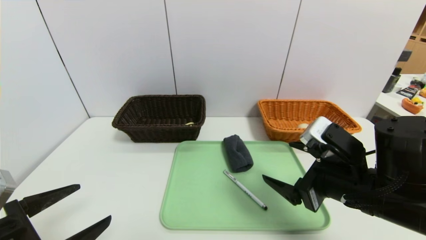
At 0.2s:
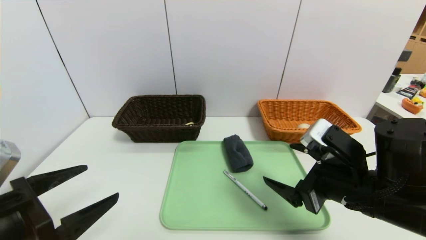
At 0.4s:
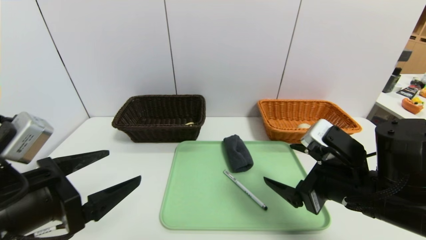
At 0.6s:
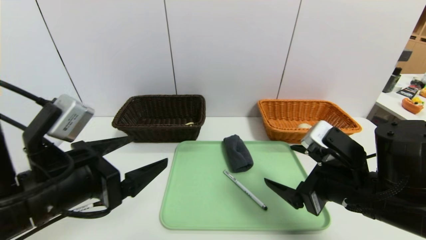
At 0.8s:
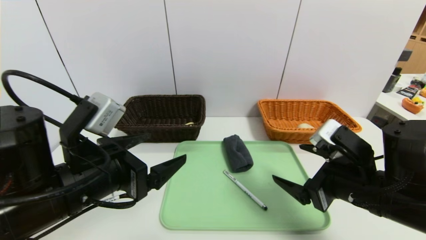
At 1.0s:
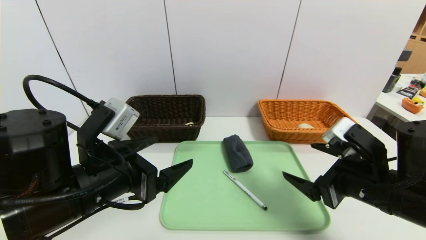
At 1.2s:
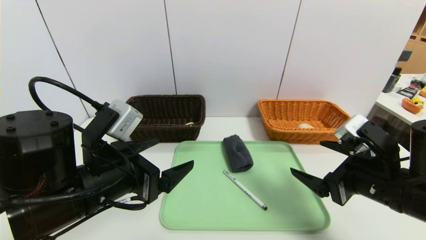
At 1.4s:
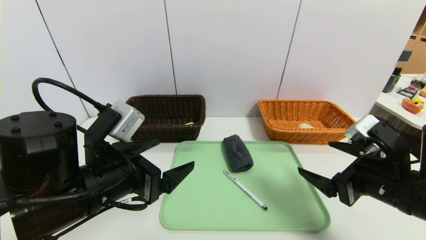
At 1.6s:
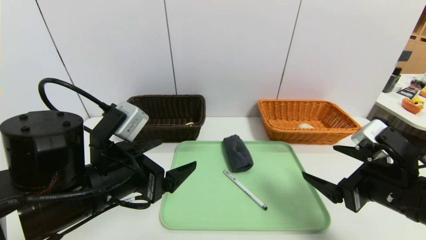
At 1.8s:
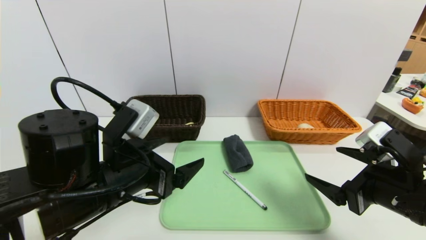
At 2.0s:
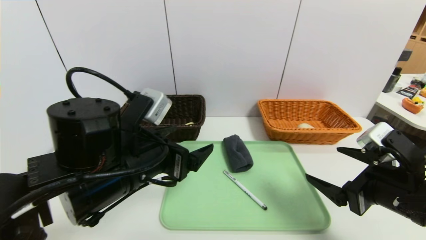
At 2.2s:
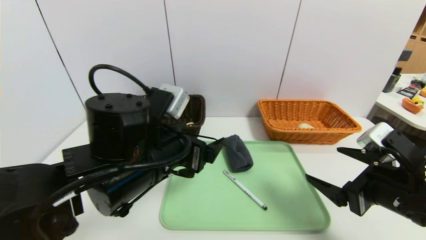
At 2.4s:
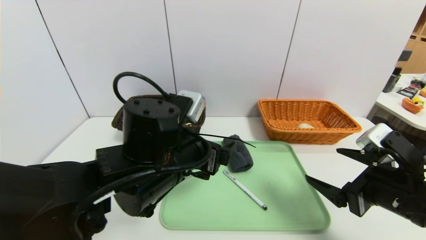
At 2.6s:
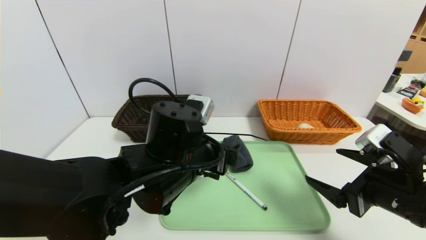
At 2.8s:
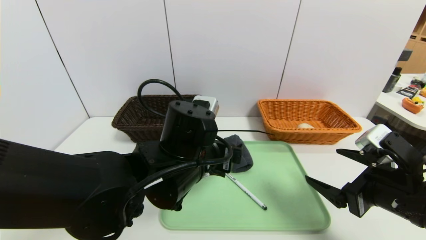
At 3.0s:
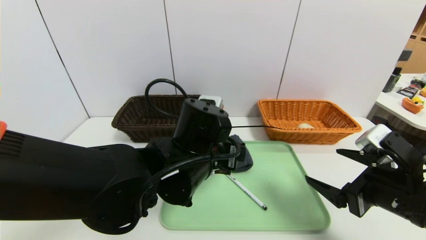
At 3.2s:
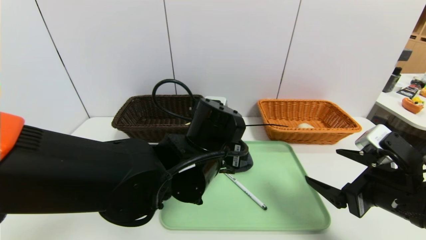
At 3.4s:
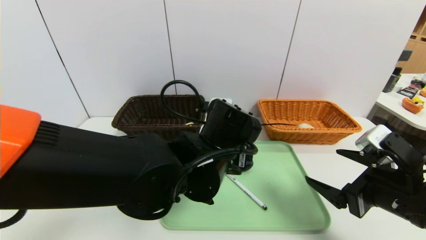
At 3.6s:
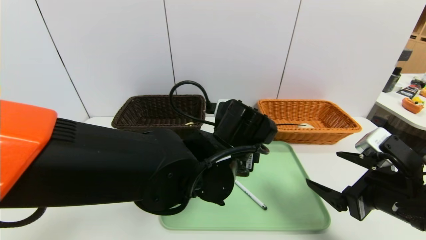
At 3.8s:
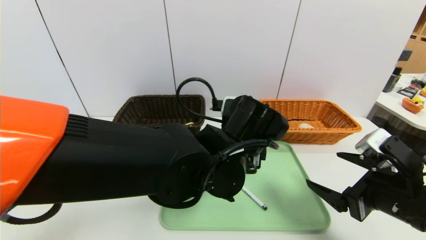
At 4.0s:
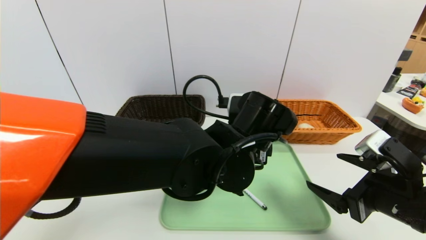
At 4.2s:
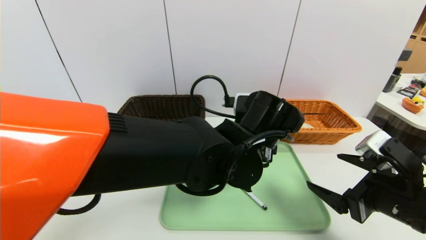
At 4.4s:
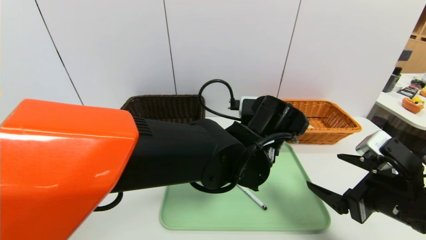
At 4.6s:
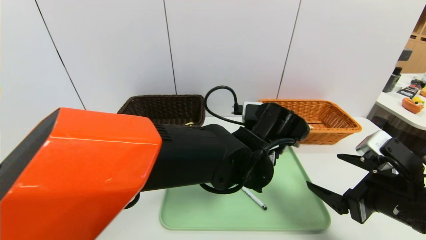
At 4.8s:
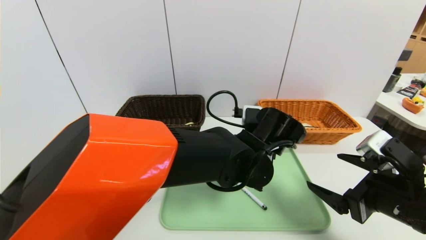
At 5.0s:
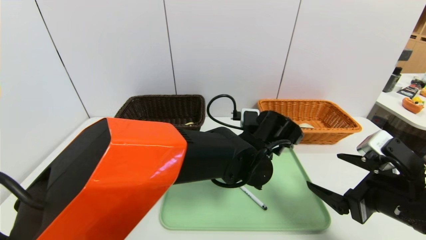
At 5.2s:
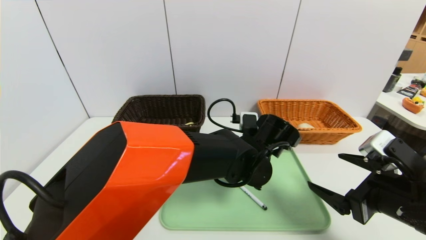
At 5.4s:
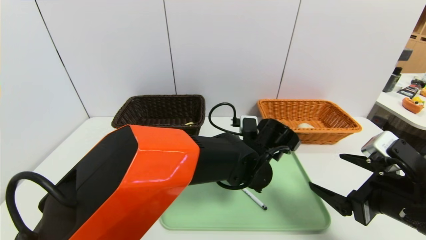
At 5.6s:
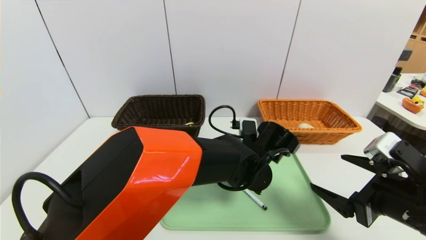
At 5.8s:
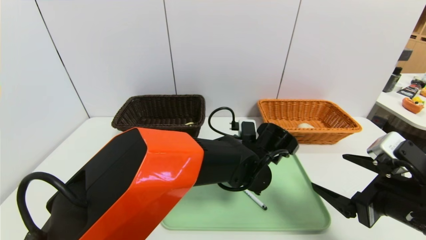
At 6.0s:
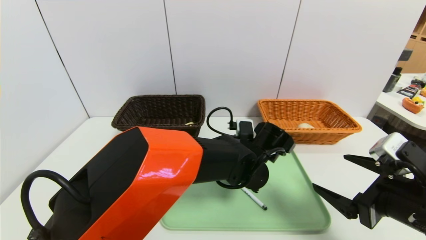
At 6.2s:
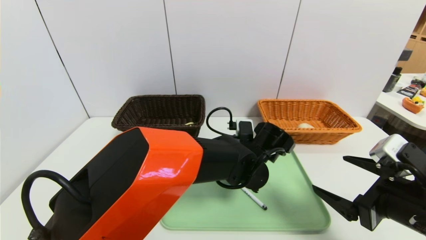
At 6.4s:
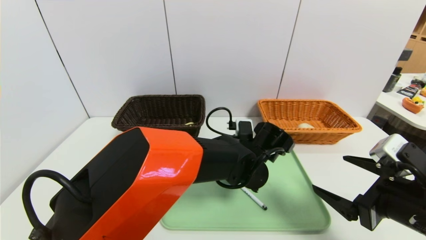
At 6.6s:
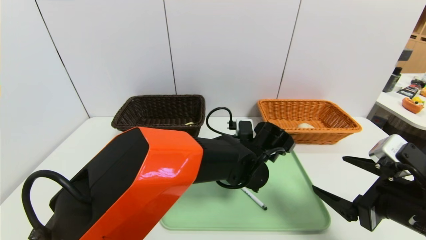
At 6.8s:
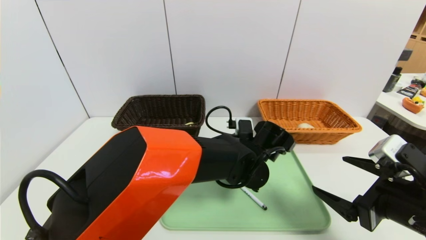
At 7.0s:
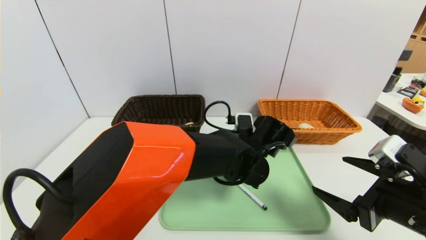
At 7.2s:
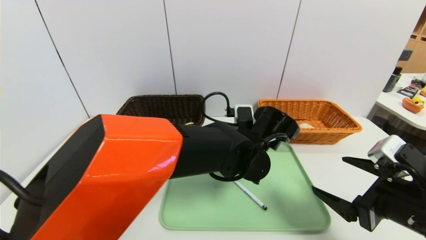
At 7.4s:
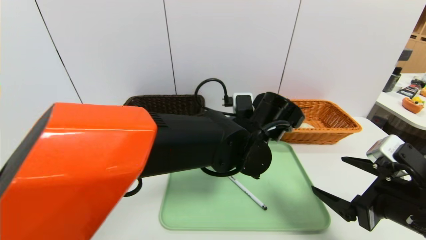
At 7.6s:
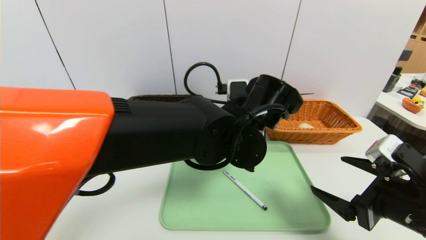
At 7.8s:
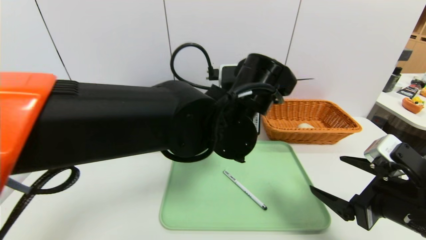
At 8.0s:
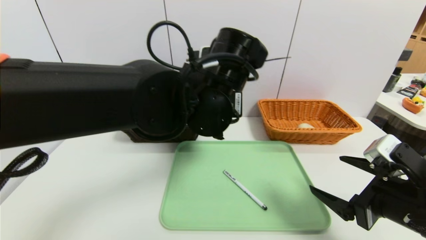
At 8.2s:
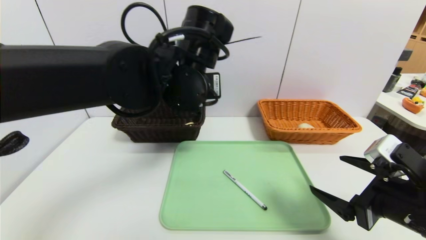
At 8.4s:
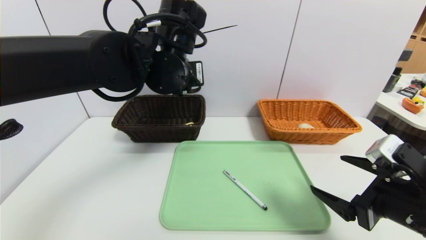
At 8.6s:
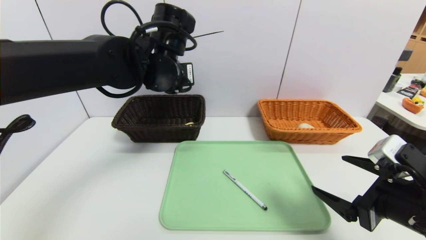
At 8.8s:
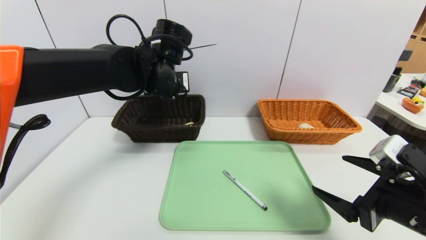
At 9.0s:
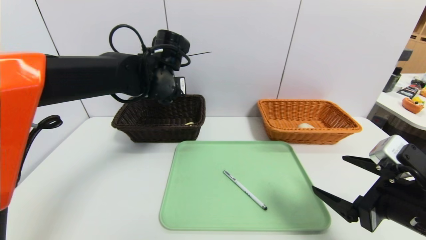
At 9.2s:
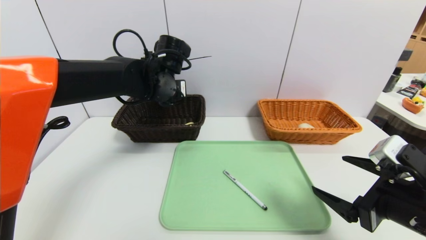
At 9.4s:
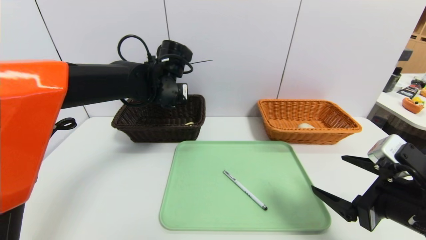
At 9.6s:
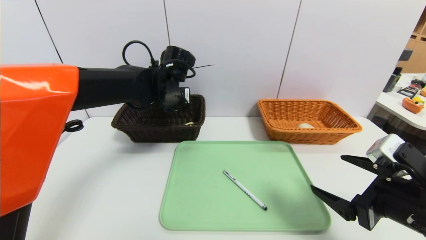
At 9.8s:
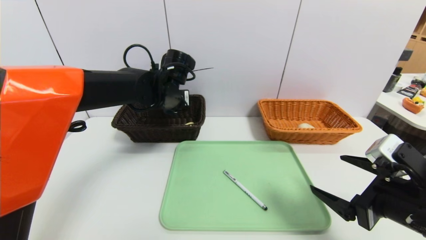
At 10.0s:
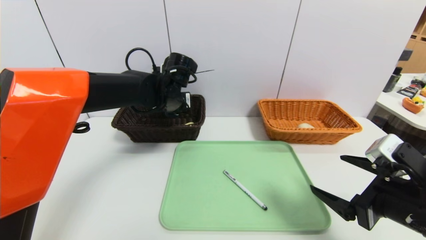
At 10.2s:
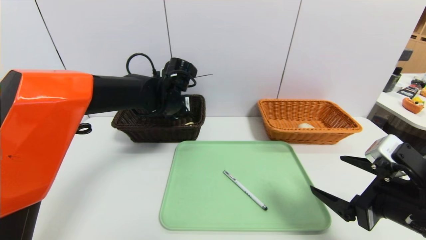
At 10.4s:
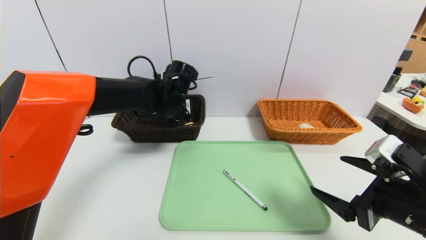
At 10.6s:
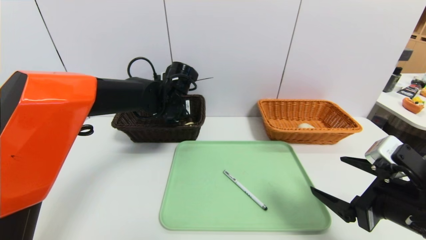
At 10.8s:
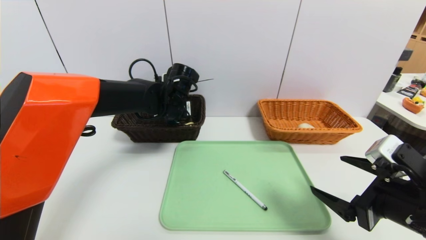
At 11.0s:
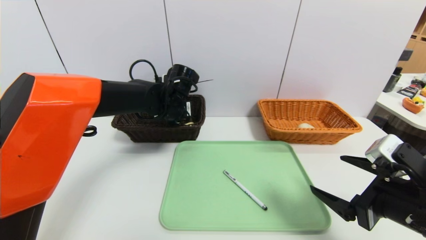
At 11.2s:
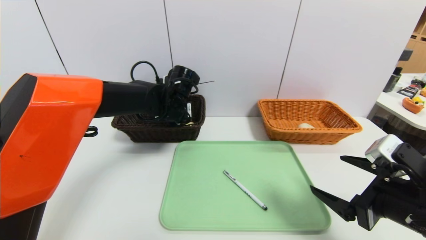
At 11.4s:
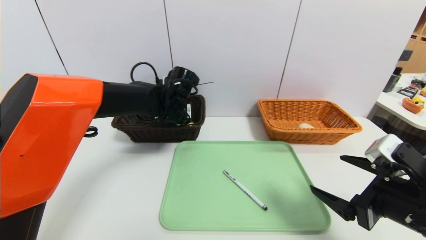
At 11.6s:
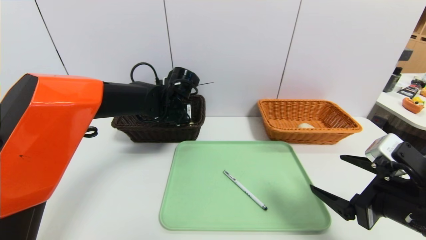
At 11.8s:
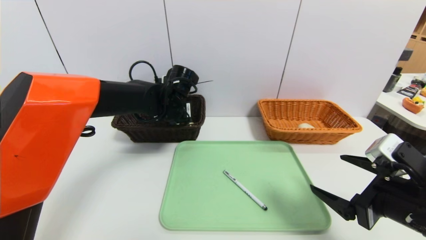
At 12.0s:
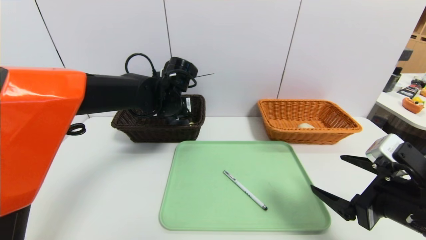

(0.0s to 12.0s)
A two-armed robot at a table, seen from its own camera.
Task of the whole recording: place the food in the right basket with the right gripper, and place the non food items in the left basket with the left gripper.
0.0s - 1.6s: The right gripper moves to the right, about 5 cm. Meanwhile the left gripper heads to the right and forward, covering approximately 15 cm.
1.6s - 3.0s: The left gripper shifts about 15 cm to the right and forward.
3.0s - 4.4s: The left gripper heads to the right, covering approximately 10 cm.
4.4s - 6.0s: The left gripper shifts about 5 cm downward.
6.0s - 7.6s: The left gripper travels upward by approximately 10 cm, and closes up.
7.6s - 9.0s: The left gripper is displaced to the left and forward by some 20 cm.
9.0s - 10.4s: The left gripper shifts about 5 cm downward.
10.4s - 12.0s: The left gripper opens its fingers.

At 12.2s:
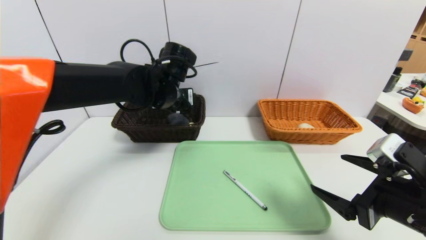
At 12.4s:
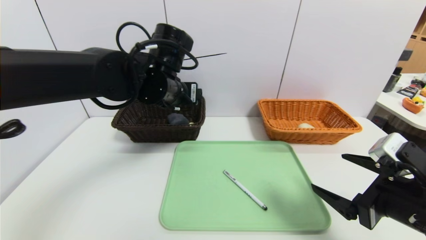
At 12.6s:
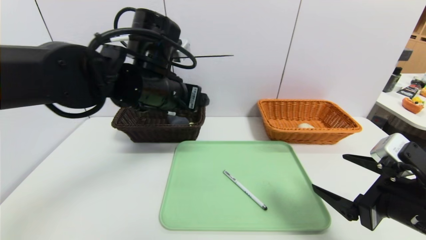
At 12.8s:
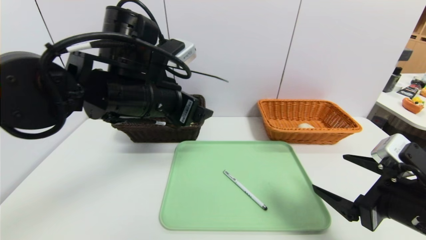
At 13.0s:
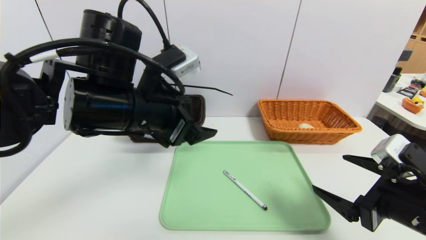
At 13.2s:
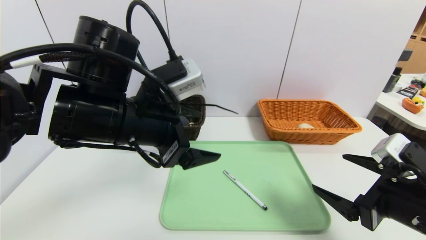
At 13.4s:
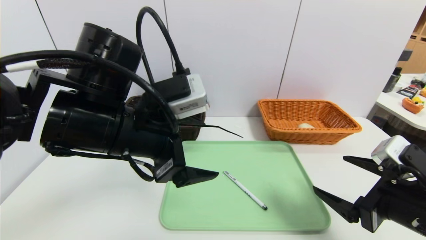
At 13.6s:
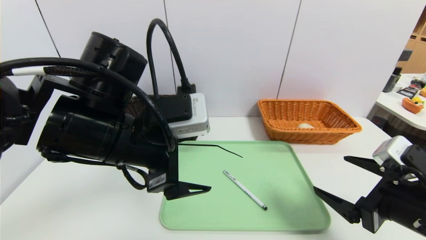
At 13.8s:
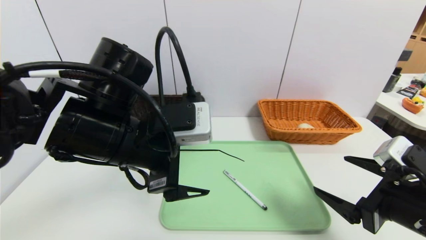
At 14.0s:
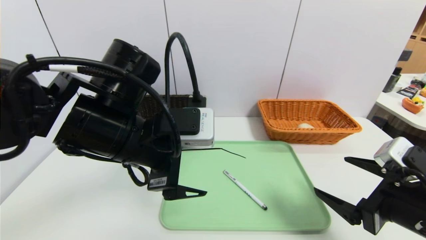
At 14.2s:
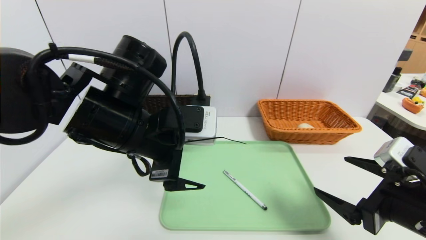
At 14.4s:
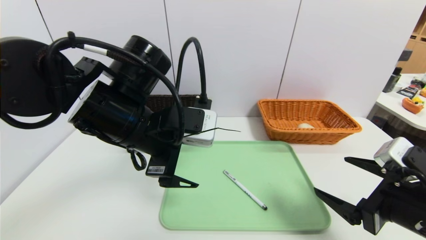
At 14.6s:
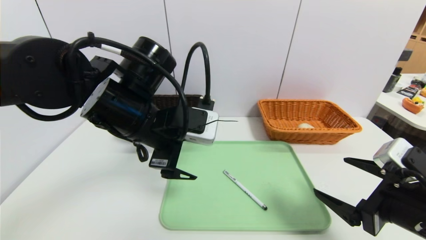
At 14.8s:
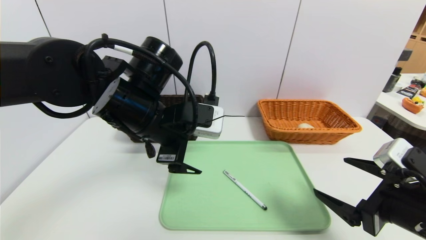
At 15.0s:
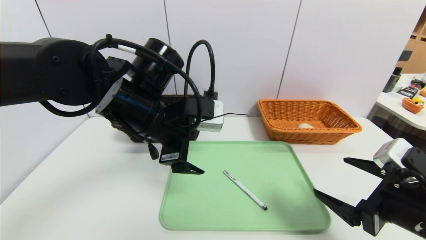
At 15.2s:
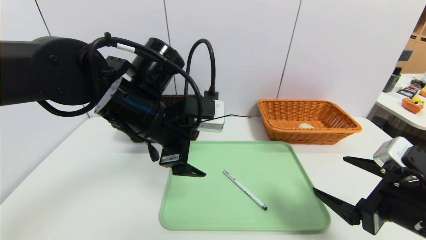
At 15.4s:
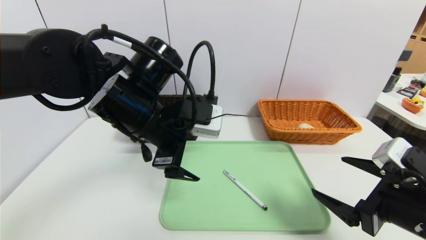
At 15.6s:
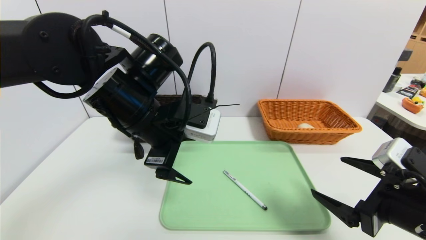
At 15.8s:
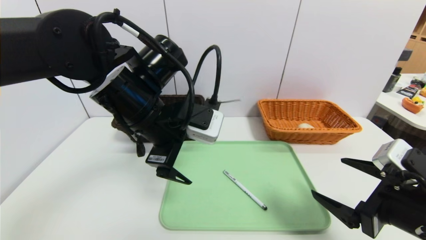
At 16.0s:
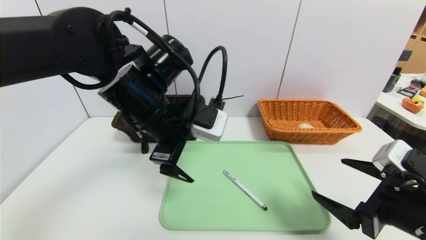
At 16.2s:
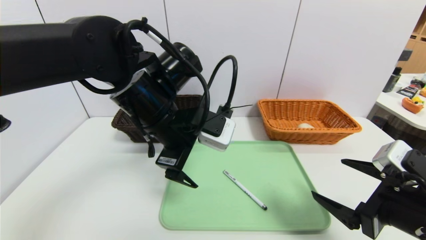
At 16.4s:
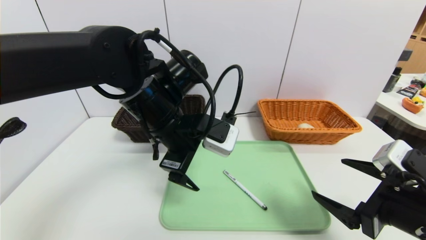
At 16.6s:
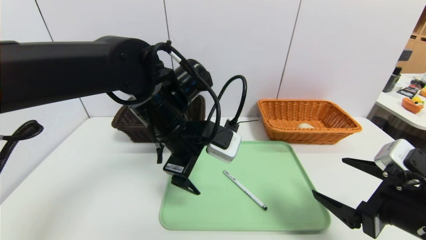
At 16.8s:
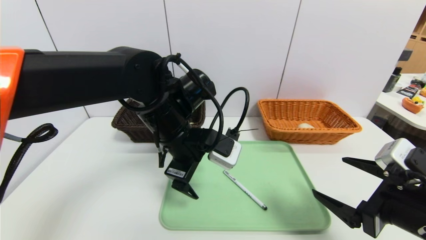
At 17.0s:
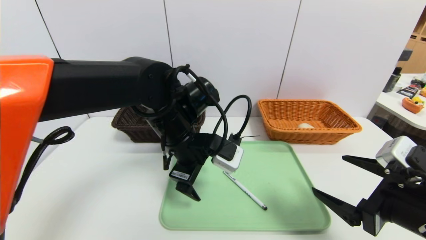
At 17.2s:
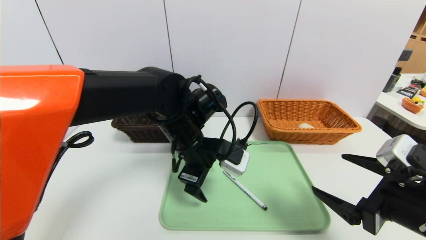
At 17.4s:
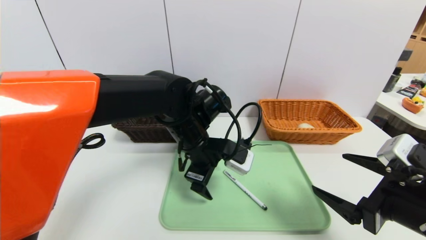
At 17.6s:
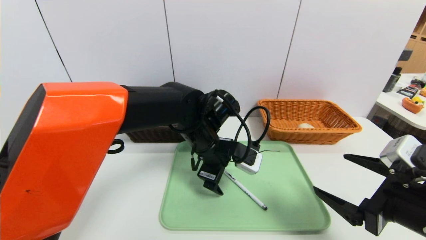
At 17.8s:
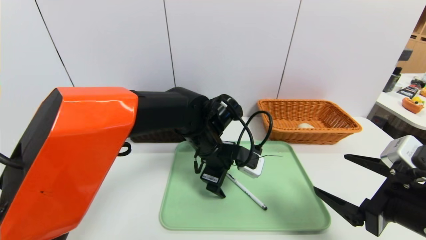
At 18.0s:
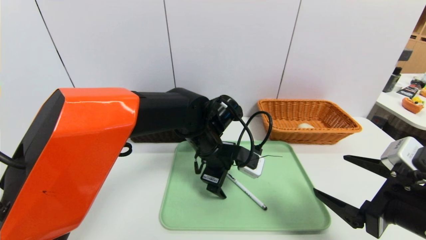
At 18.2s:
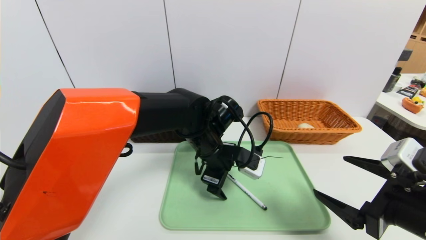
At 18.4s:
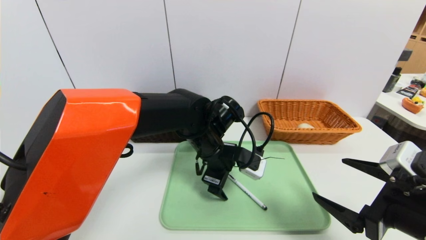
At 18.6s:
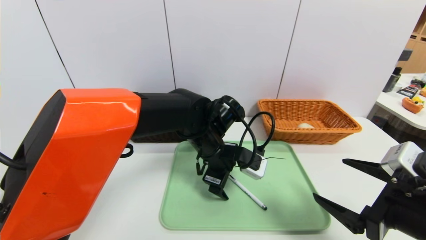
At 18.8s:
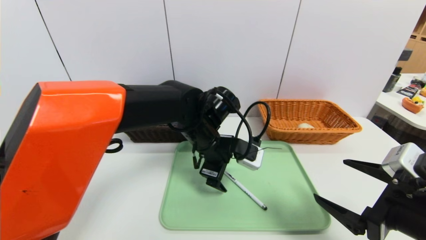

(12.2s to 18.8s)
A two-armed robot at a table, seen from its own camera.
Task of the whole recording: place the food in the right basket with the right gripper, and place the non food items in the left basket with the left gripper.
12.2s - 13.8s: The left gripper heads backward, covering roughly 15 cm.
13.8s - 15.4s: The left gripper shifts by about 5 cm.
15.4s - 17.2s: The left gripper shifts approximately 10 cm downward and to the right.
